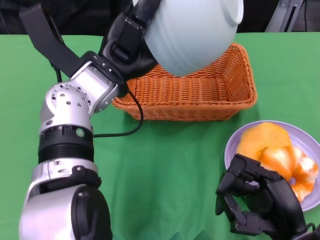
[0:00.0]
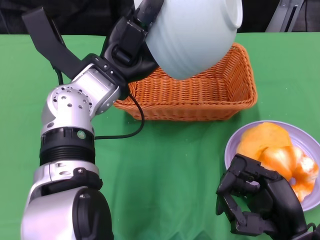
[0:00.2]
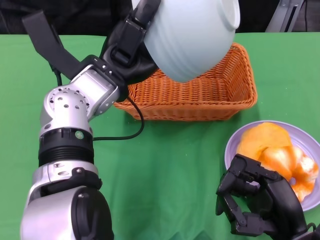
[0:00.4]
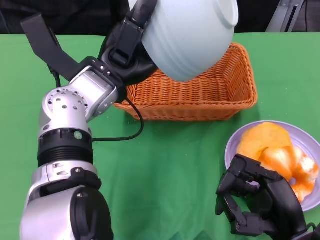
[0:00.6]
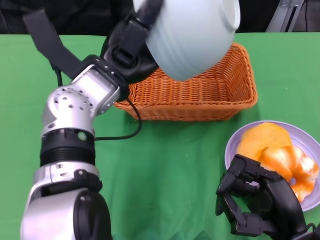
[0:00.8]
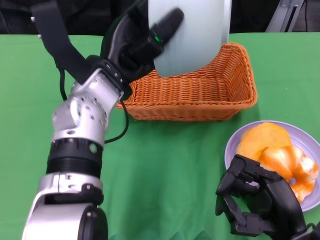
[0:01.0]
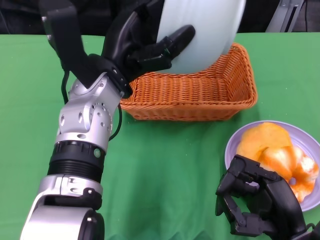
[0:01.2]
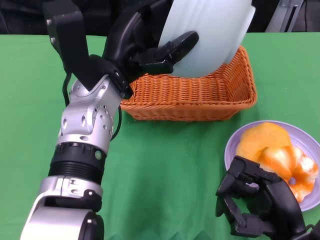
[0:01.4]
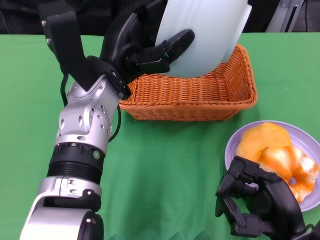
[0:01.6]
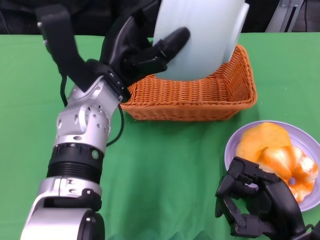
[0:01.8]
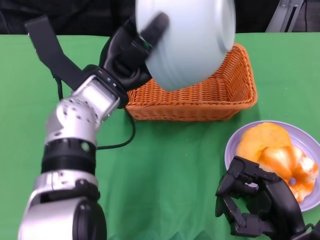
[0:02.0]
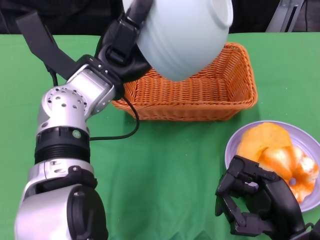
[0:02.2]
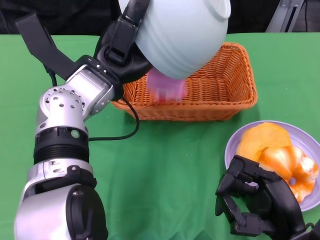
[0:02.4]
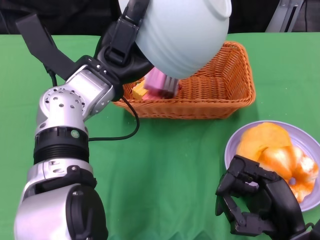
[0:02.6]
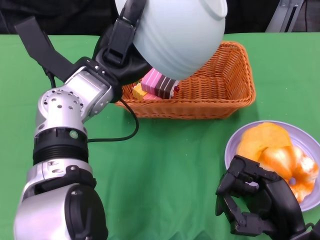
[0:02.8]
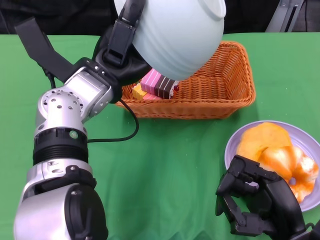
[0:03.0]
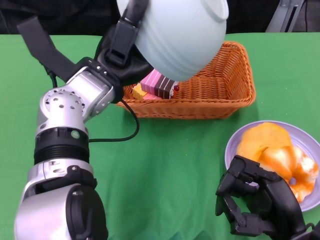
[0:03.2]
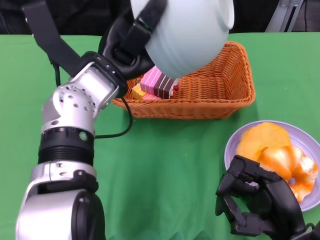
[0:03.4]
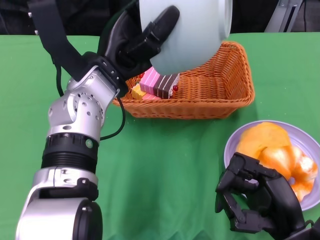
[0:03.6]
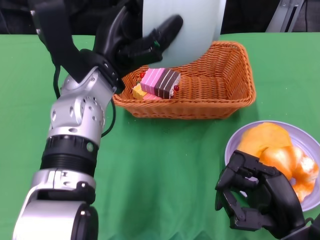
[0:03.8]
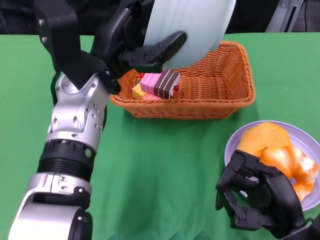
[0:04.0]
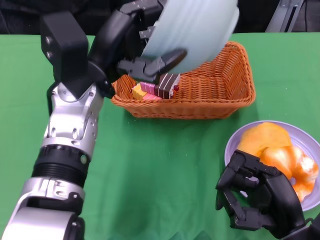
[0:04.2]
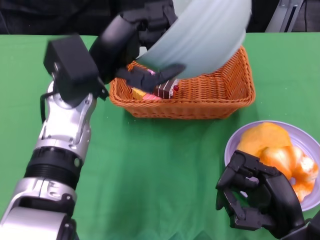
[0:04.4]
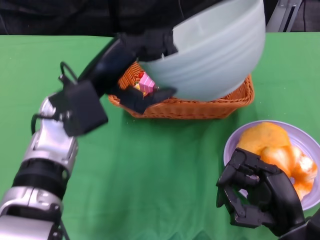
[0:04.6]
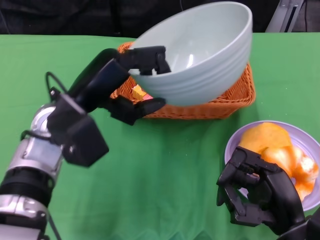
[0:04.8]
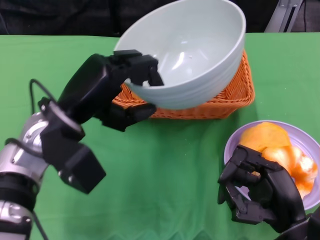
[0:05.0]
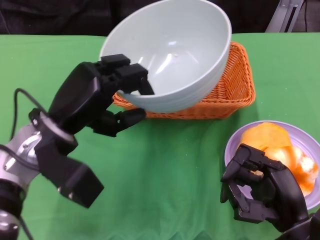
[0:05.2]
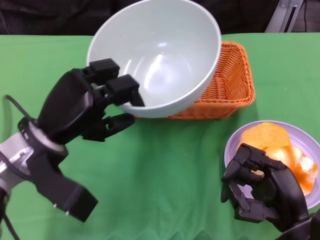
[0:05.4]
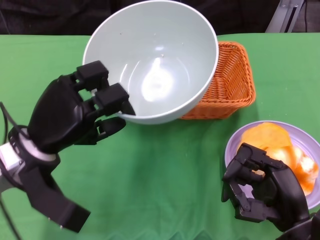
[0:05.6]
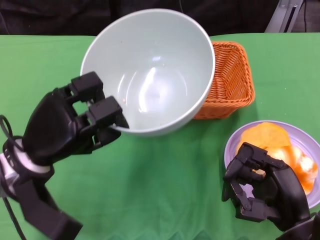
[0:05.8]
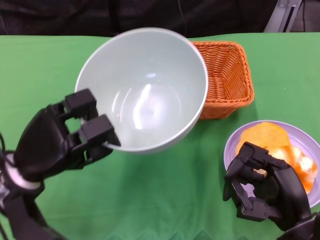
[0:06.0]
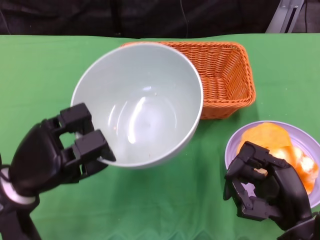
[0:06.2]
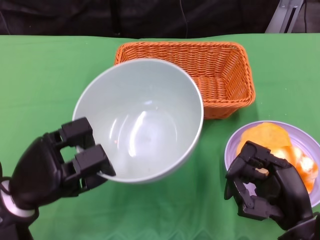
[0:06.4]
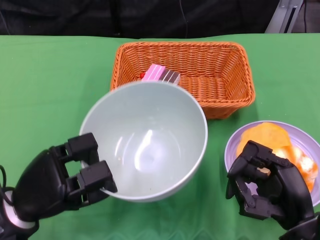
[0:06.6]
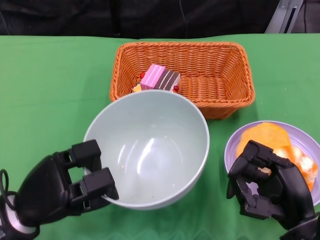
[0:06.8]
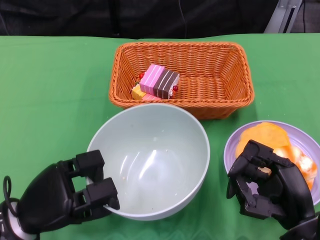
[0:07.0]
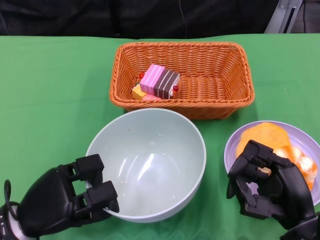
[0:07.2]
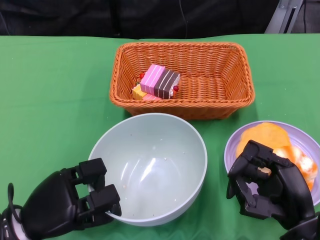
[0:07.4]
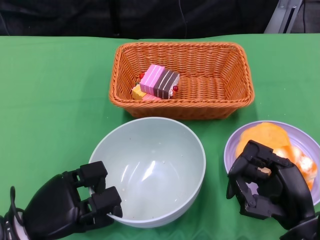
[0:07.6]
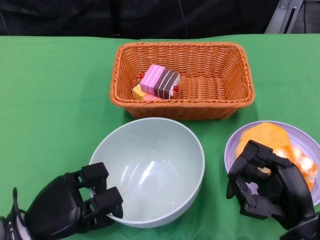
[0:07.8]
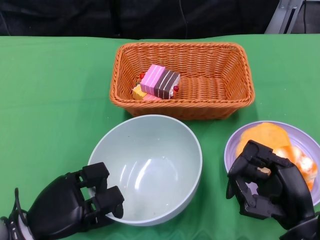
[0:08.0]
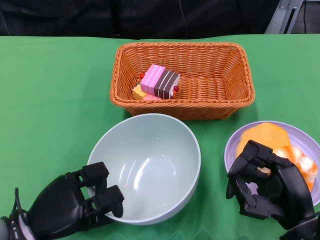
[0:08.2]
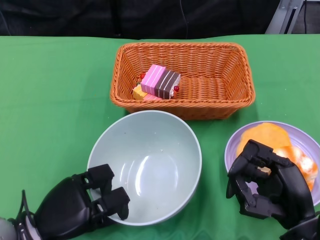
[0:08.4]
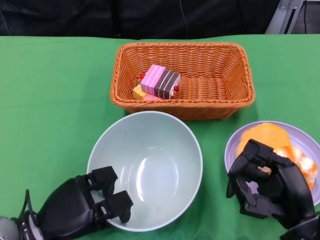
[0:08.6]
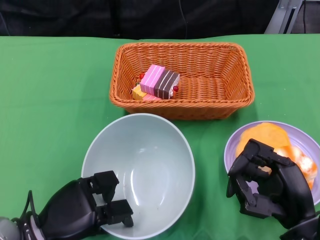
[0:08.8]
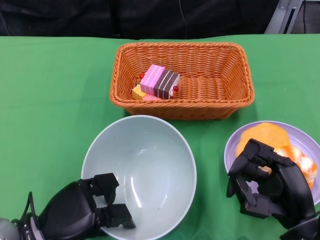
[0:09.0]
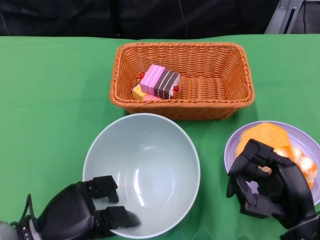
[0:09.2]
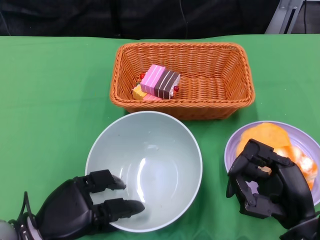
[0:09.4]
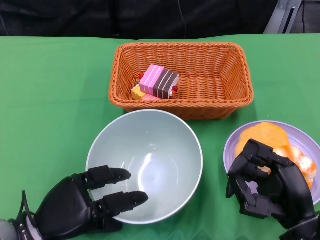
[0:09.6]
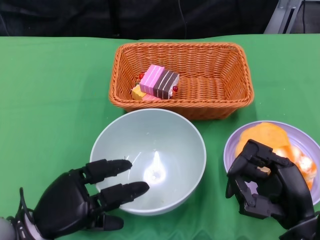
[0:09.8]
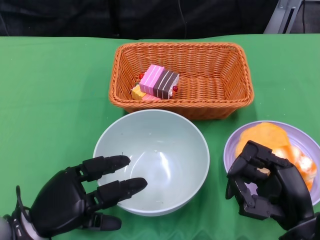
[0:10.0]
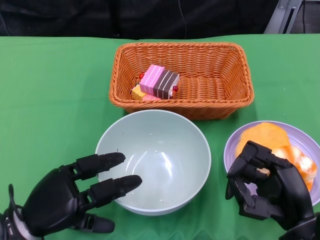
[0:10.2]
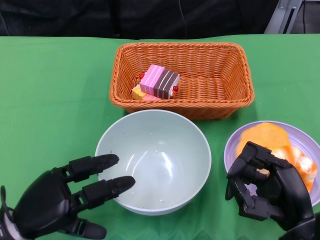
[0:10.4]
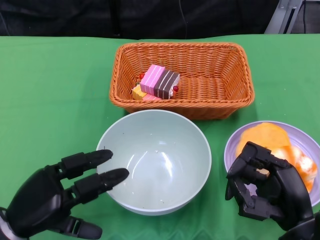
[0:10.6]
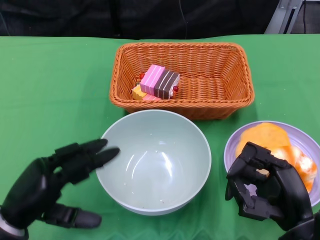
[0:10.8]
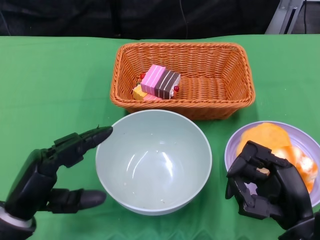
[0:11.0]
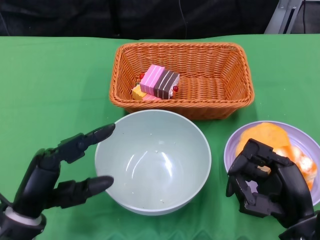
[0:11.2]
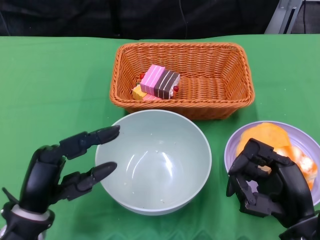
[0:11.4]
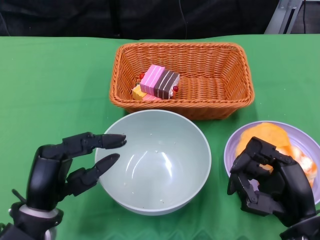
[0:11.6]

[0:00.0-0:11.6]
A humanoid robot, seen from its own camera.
Step, 0:00.0 to 0:04.0: Pour the cake into the basket with the left gripper.
Step, 0:04.2 to 0:09.6: Place the bowl on the table with the left gripper.
0:04.4 to 0:05.8: The left hand heads downward, to the left and backward, covering approximately 15 cm.
0:05.8 to 0:07.2: The left hand shifts approximately 10 cm downward and backward.
0:07.2 to 0:10.2: The hands stay close to where they were, moving slightly.
0:10.2 to 0:11.6: The left hand moves roughly 5 cm.

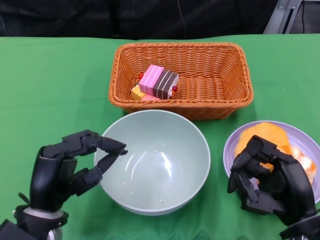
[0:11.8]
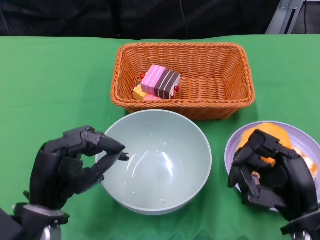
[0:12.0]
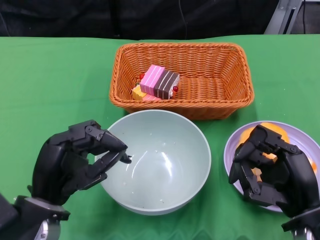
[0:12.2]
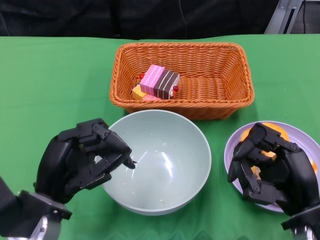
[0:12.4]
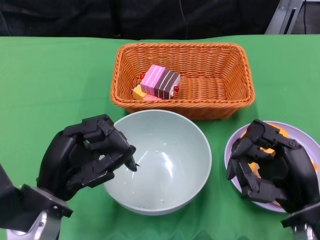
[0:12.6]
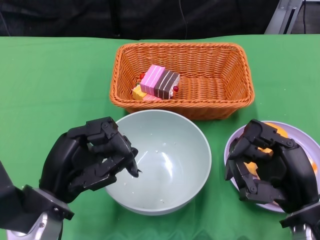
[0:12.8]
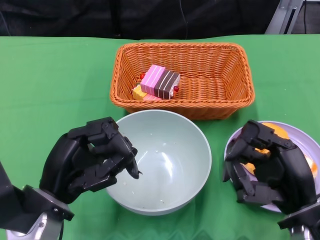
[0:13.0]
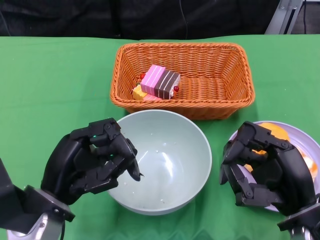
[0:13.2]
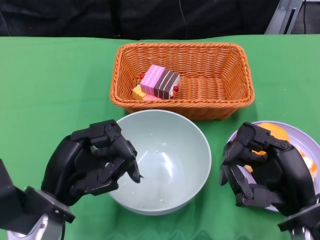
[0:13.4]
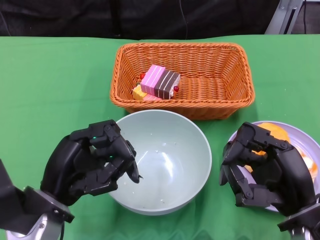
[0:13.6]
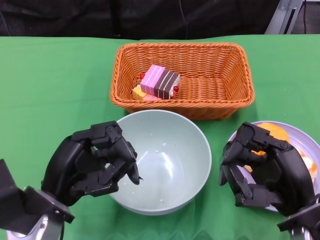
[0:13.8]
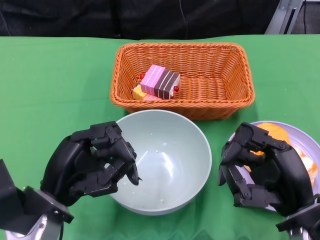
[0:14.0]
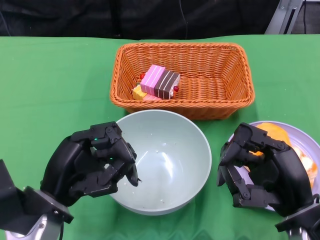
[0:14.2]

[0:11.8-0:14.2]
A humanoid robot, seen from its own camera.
0:13.0 to 0:14.2: Both hands stay about where they are.
